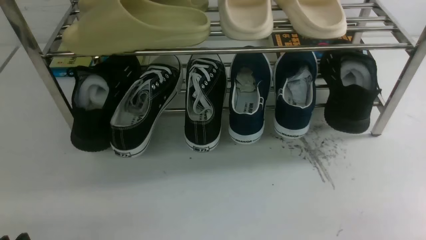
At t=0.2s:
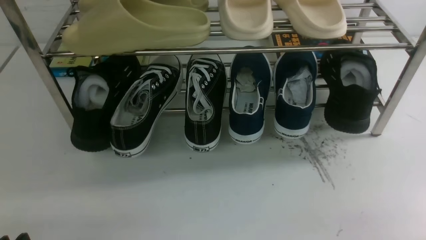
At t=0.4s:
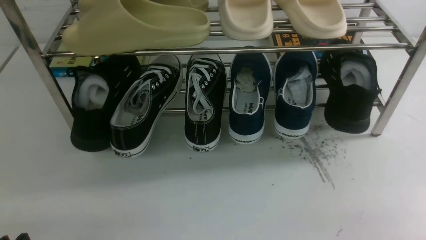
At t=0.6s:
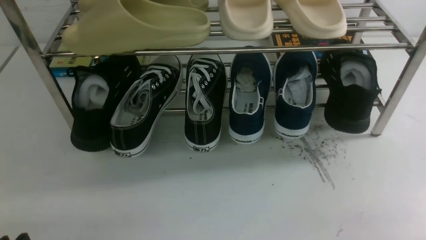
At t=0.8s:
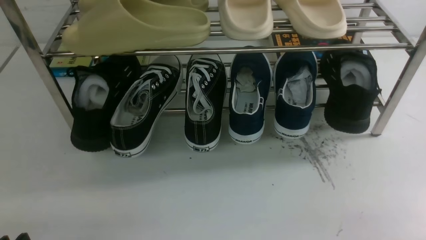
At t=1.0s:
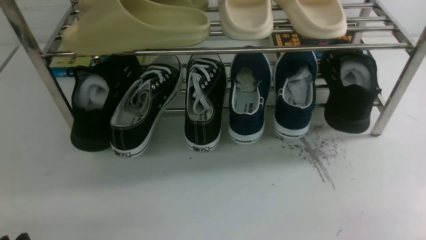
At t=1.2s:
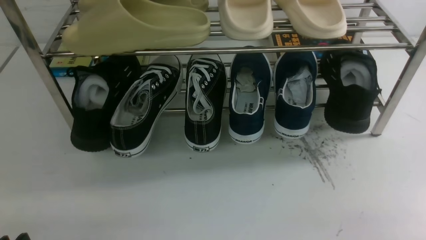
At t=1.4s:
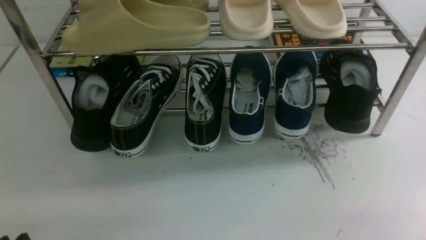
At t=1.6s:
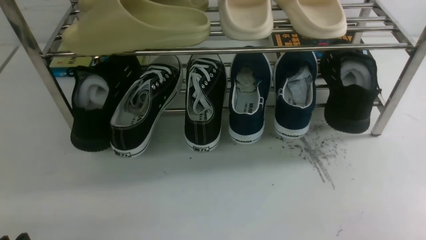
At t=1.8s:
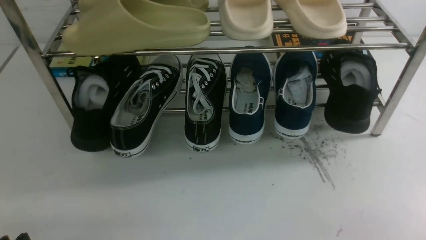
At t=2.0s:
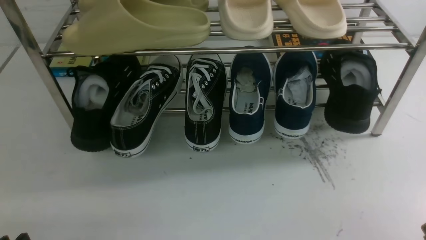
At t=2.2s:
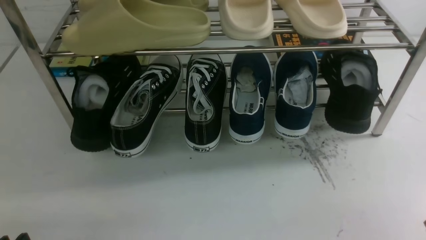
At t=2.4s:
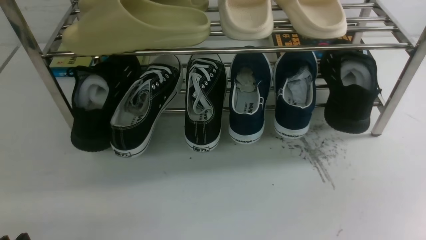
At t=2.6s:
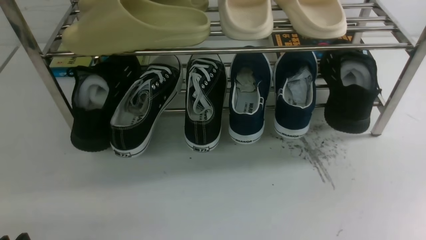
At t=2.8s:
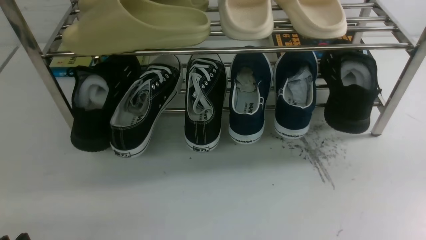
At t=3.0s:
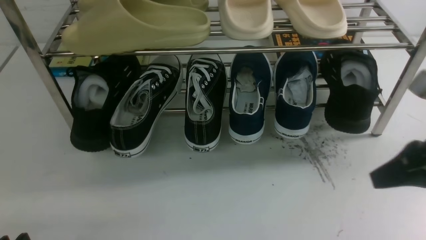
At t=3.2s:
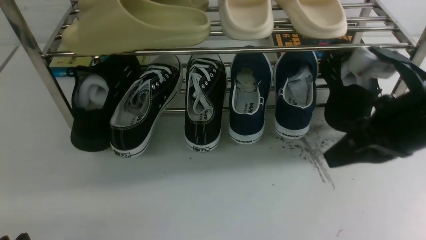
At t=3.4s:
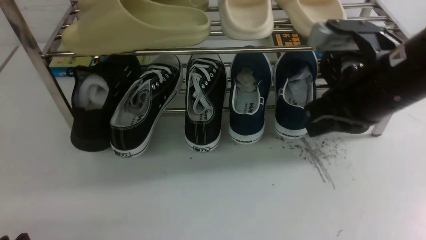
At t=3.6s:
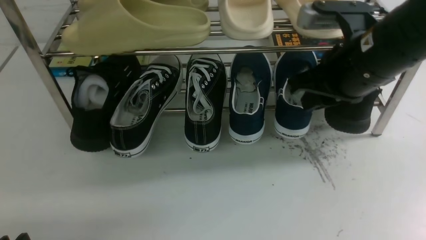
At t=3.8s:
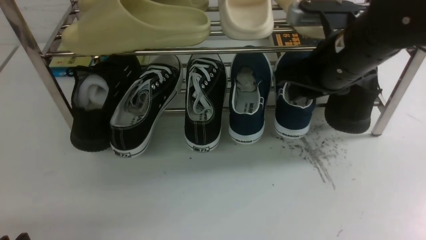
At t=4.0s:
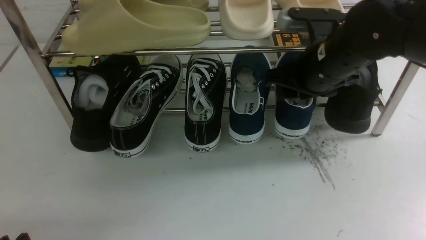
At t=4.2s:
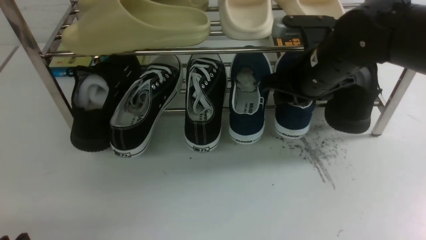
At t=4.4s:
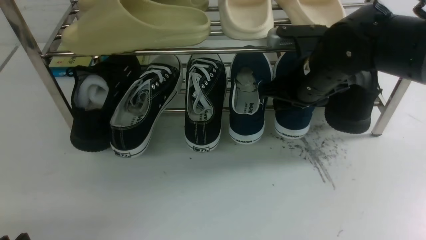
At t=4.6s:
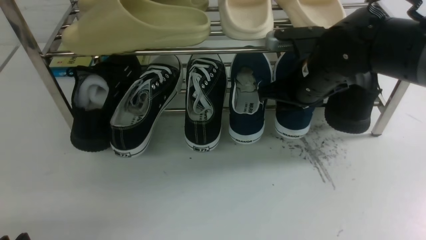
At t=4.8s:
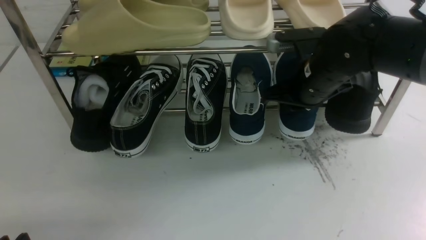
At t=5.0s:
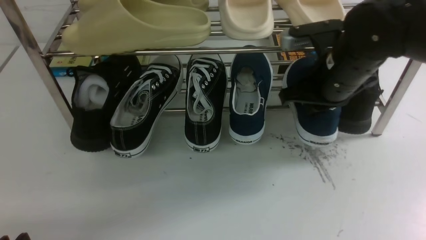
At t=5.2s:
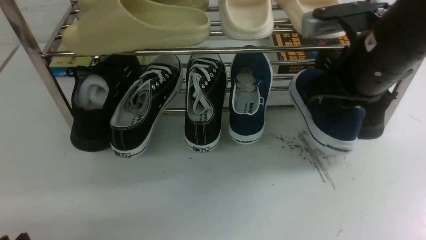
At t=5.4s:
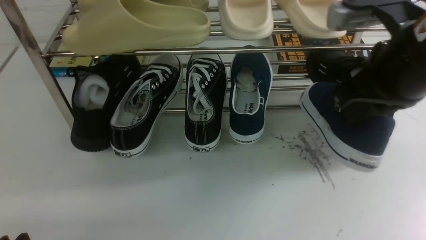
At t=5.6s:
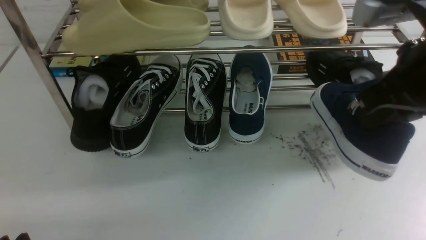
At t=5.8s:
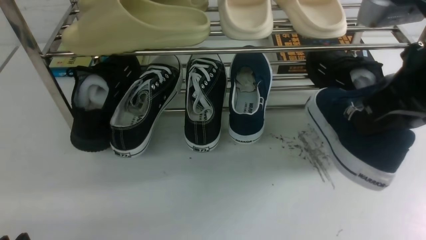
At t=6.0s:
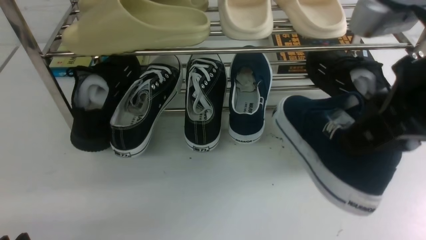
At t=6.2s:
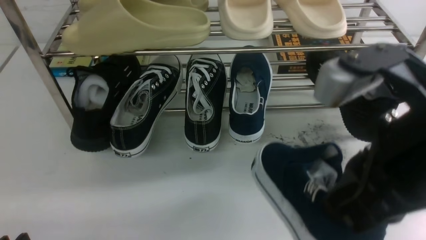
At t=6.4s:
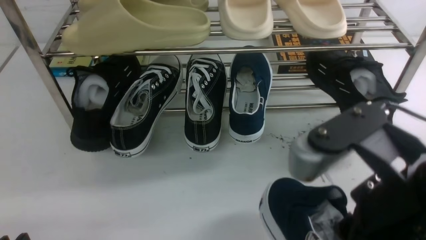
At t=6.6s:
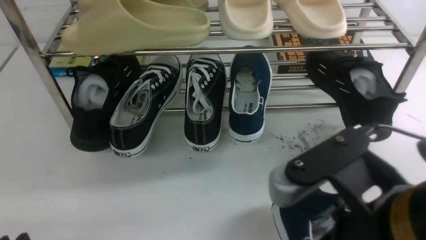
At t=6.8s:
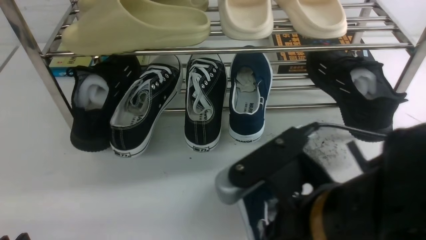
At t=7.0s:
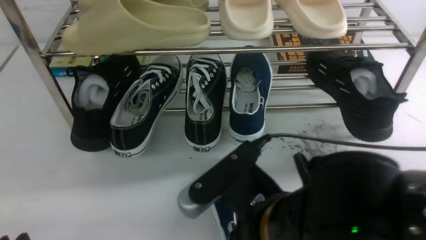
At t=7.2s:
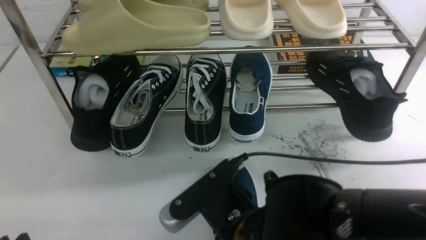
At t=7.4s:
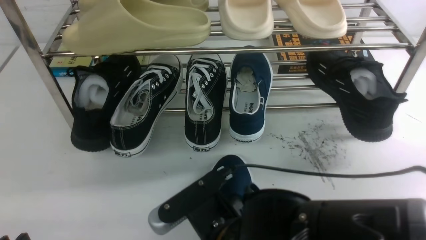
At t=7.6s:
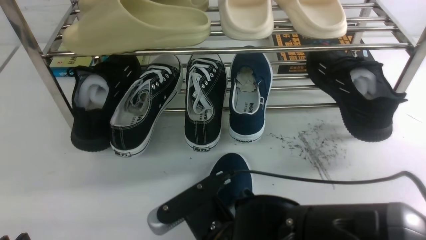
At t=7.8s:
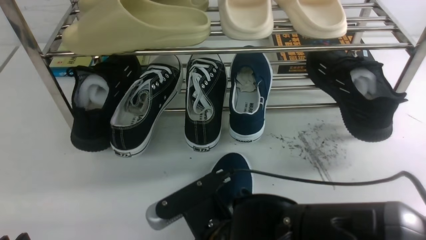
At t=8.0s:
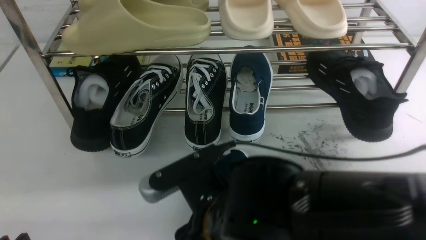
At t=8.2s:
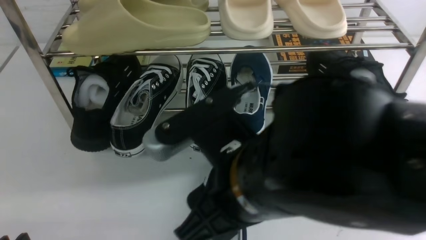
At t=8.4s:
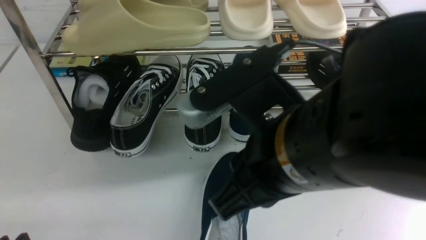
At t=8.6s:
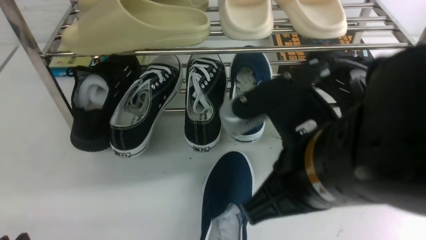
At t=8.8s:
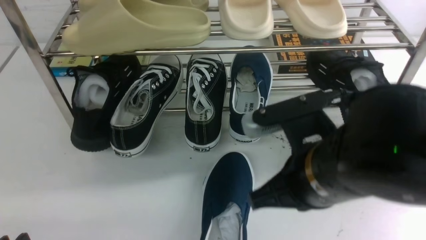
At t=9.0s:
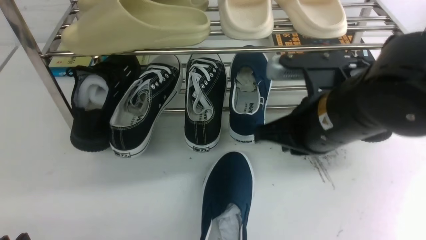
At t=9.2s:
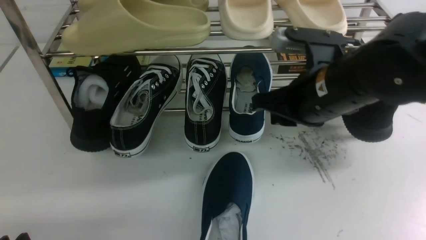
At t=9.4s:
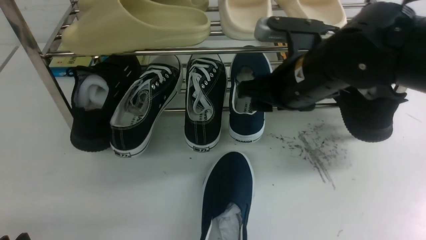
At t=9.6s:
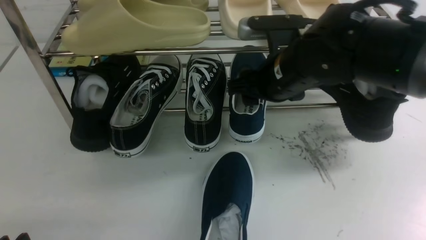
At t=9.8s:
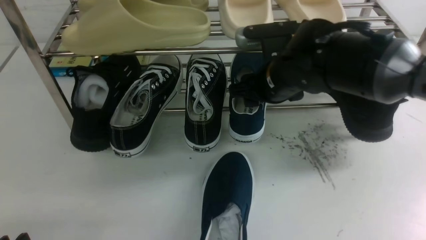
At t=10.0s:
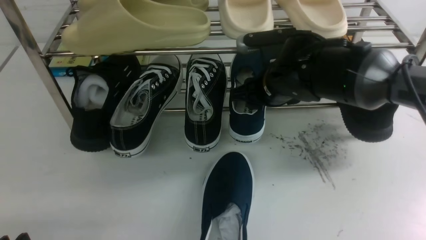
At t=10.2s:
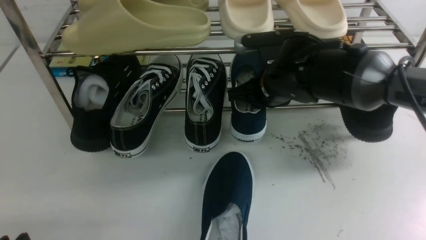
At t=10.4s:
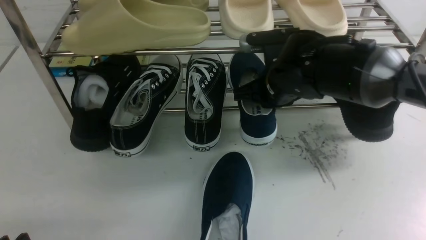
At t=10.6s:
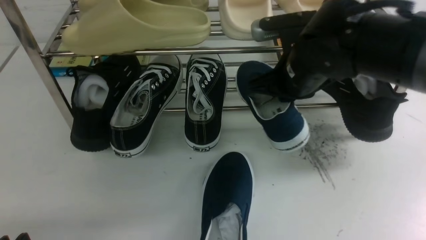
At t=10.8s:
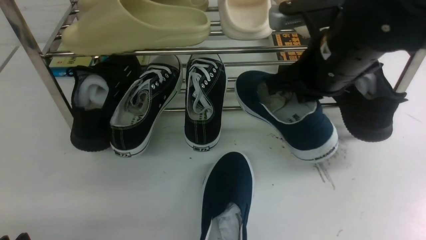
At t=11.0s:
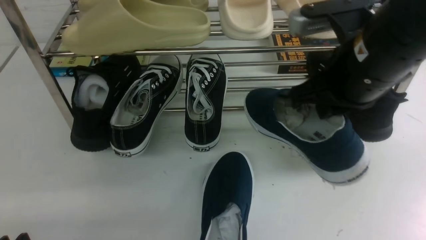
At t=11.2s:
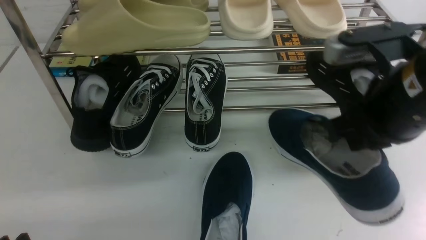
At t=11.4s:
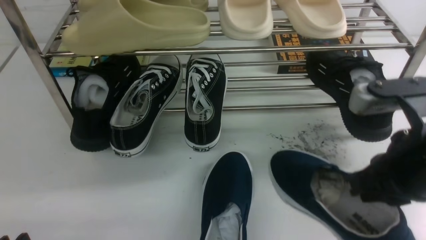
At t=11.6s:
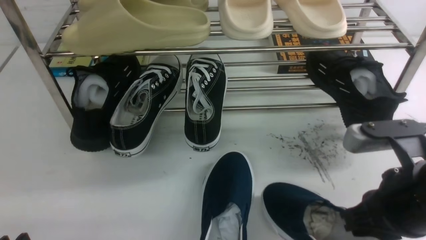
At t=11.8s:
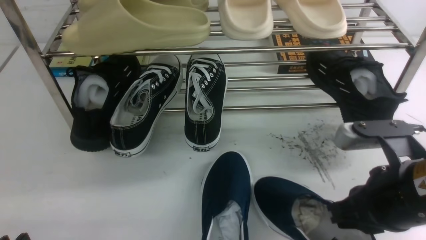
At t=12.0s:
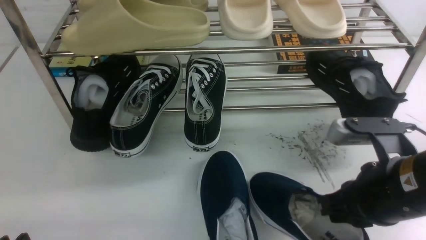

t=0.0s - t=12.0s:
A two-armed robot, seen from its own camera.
Step, t=0.0s - t=5.0s: use the right arm to clamp a shoe on the right side of the shoe rack.
Step, t=5.2s - t=8.2s: use the right arm to take out the clamped shoe from the shoe rack and put it down.
Step, t=8.4s - t=10.6s: use the right arm to clamp a shoe on the right side of the shoe rack.
t=1.6s - t=3.0s: The right gripper moves upward, forward and to the left, about 20 cm, and closes.
t=3.0s - t=4.4s: The right gripper heads forward and to the left, covering some 20 cm, and opens up.
t=4.4s - t=6.0s: The right gripper moves backward and upward, approximately 20 cm, and closes up.
t=6.0s - t=7.6s: The right gripper travels downward and to the left by roughly 25 cm.
t=7.6s - t=9.0s: The right gripper heads to the right, forward and upward, covering approximately 15 cm, and opens and closes again.
t=9.0s - t=10.4s: The right gripper heads forward, covering some 10 cm, and opens and closes again.
t=10.4s - t=12.0s: The right gripper moves backward and to the right, approximately 20 cm.

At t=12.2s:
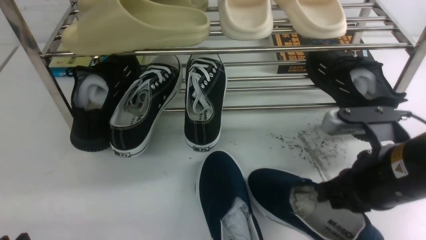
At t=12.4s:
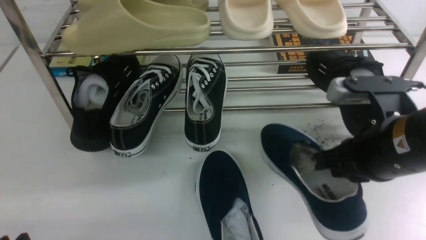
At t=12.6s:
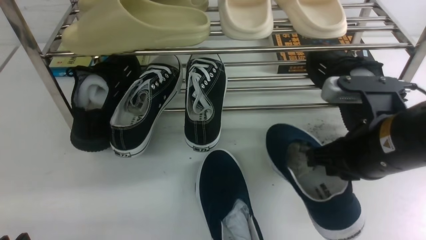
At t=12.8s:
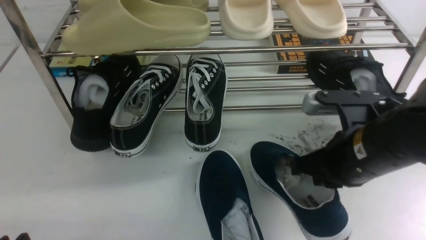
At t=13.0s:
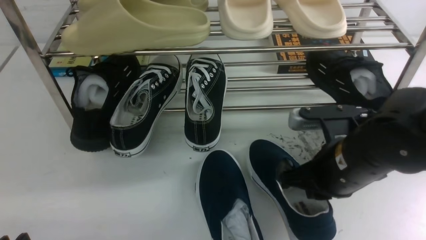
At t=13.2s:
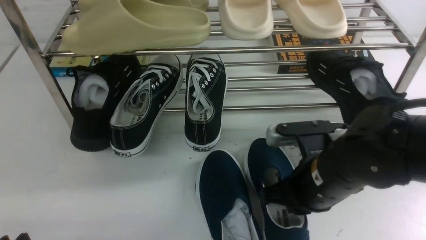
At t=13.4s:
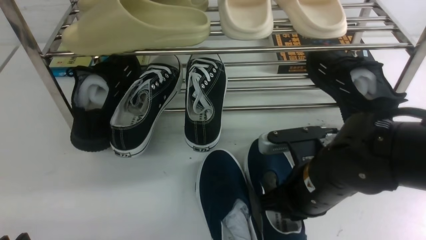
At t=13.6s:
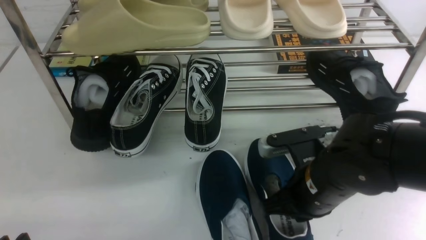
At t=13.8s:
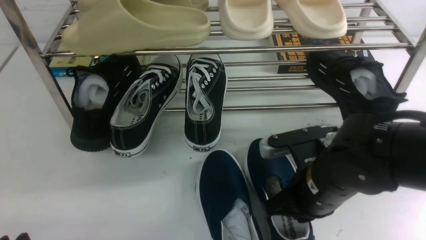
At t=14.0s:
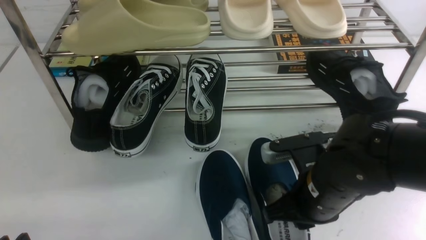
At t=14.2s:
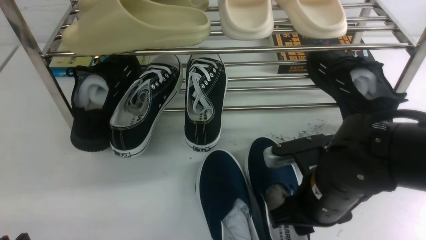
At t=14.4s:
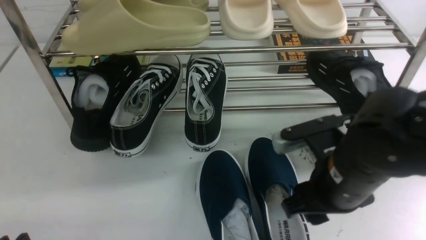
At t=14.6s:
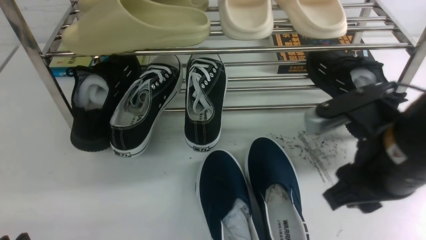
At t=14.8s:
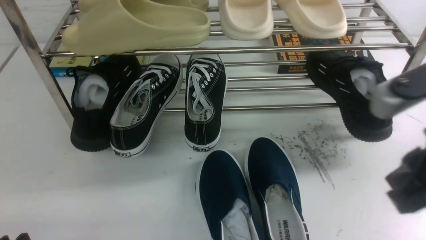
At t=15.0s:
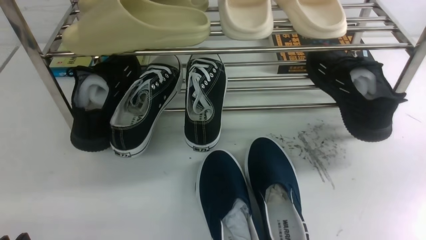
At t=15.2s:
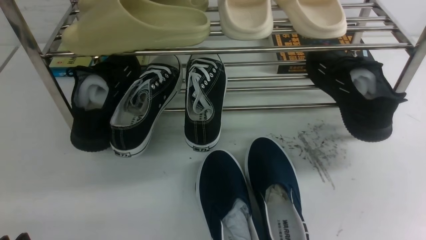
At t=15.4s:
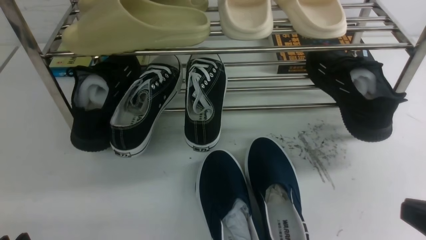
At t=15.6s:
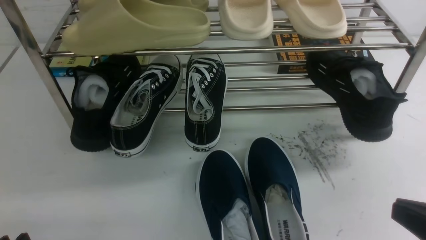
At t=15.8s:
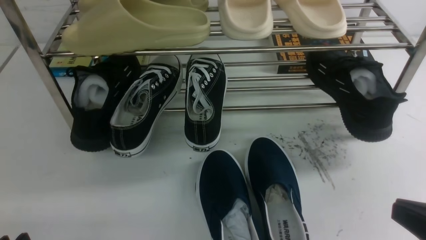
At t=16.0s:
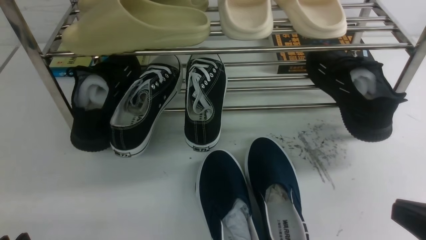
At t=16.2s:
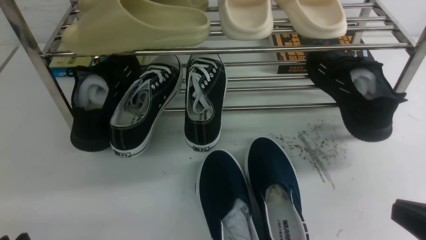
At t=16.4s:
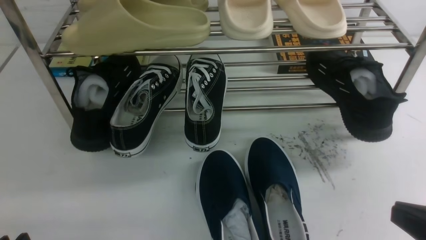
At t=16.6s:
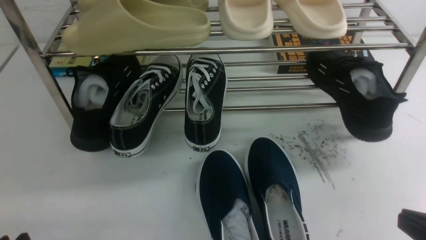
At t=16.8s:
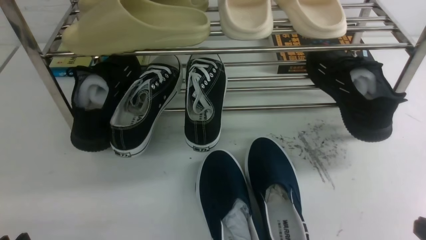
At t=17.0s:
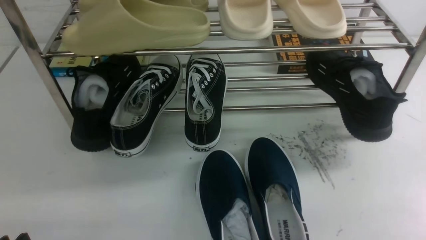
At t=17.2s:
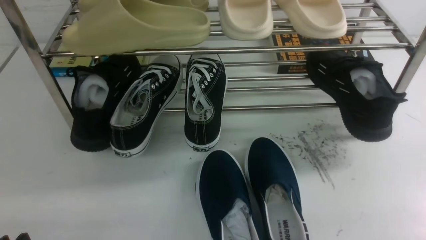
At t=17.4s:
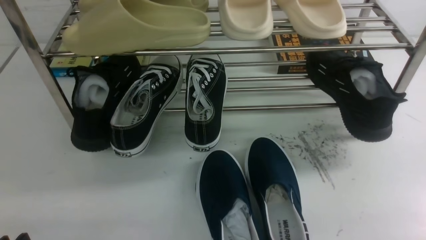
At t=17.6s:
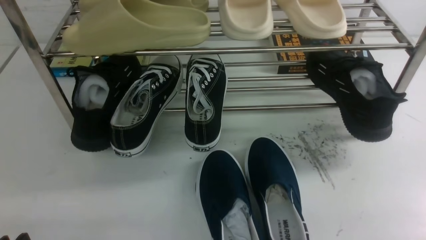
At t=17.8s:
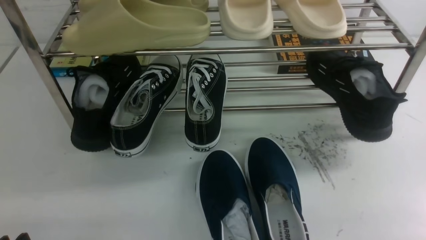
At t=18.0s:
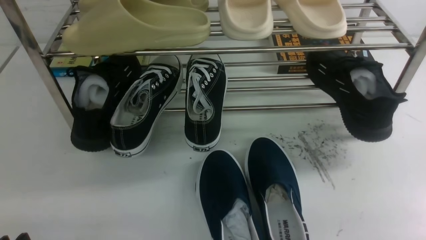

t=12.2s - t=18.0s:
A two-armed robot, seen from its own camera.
Step, t=12.2s - t=14.4s: use the right arm to take out the clamped shoe from the shoe rack and put it down.
t=12.2s - t=13.6s: The right gripper moves downward and to the left, some 10 cm.
t=13.6s - t=15.0s: The right gripper moves upward, to the right and backward, approximately 25 cm, and opens, then closes again.
t=15.0s - t=16.6s: The right gripper travels downward by about 10 cm.
t=16.6s - t=18.0s: The right gripper is displaced downward by approximately 5 cm.
